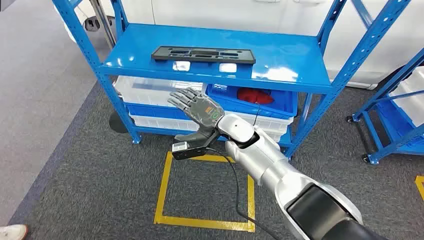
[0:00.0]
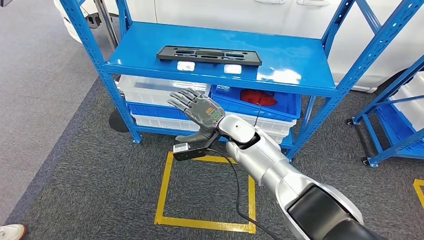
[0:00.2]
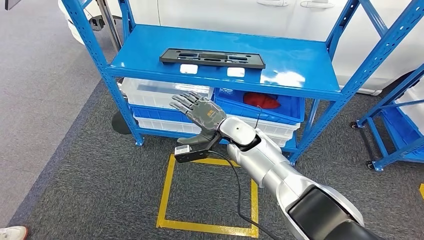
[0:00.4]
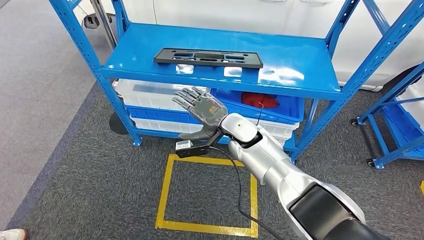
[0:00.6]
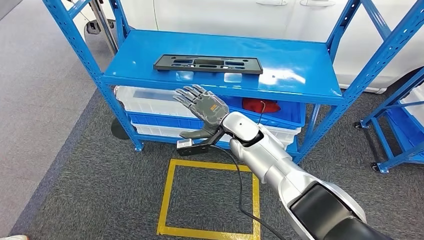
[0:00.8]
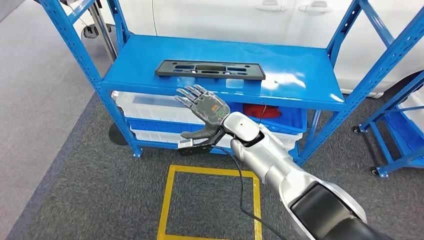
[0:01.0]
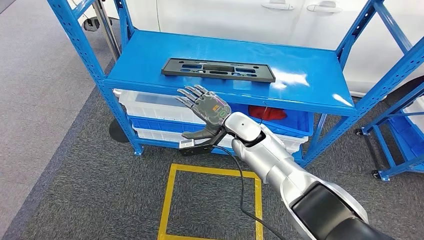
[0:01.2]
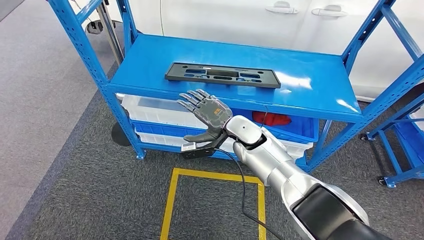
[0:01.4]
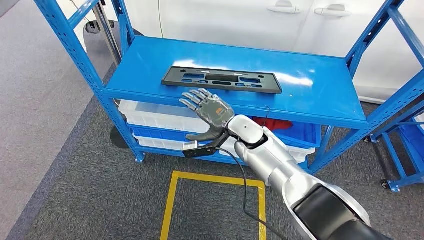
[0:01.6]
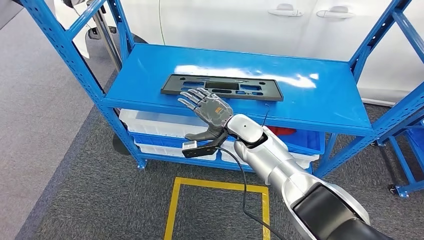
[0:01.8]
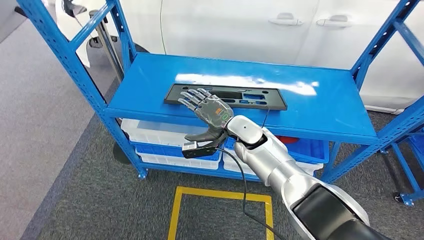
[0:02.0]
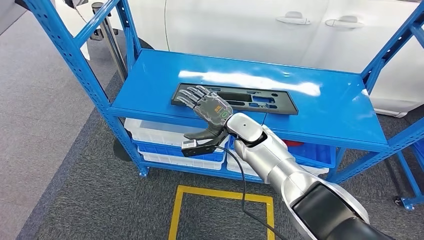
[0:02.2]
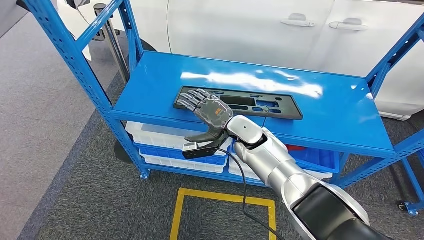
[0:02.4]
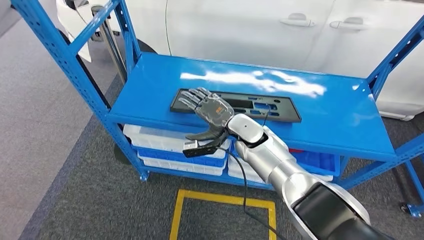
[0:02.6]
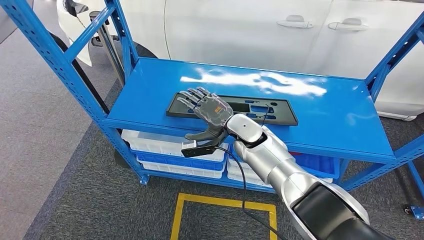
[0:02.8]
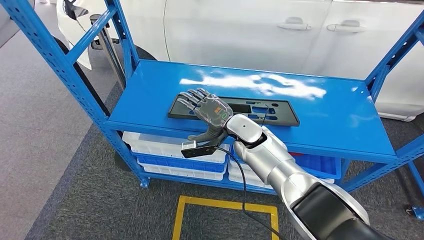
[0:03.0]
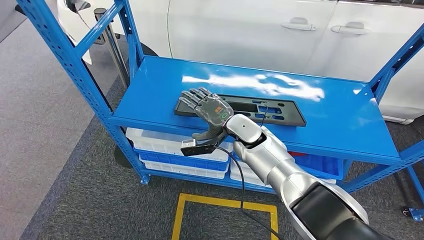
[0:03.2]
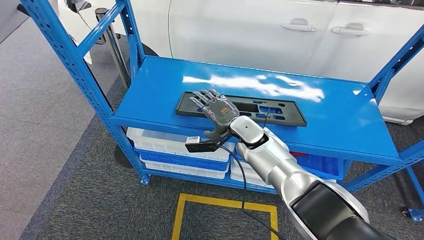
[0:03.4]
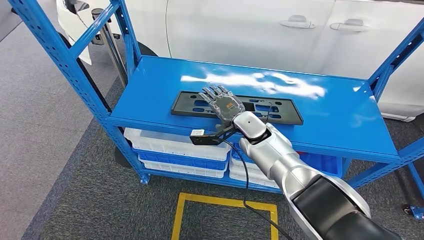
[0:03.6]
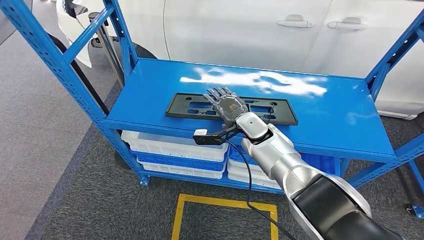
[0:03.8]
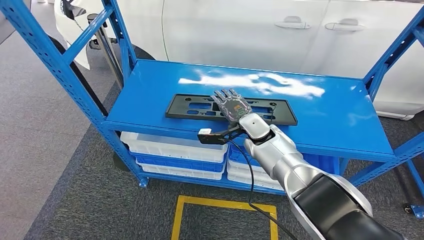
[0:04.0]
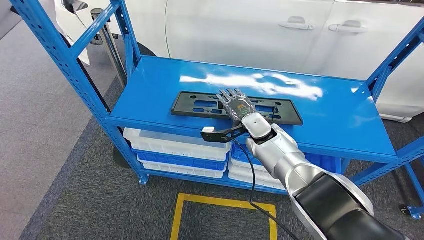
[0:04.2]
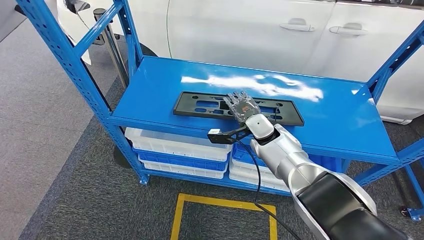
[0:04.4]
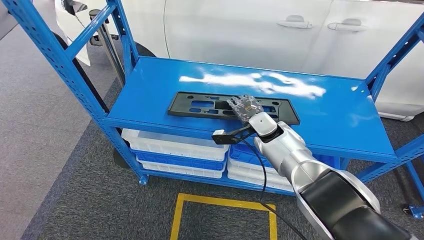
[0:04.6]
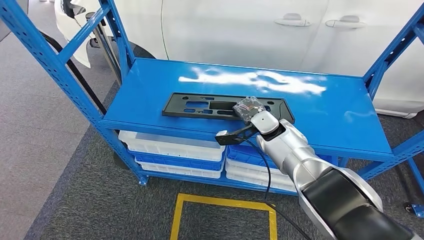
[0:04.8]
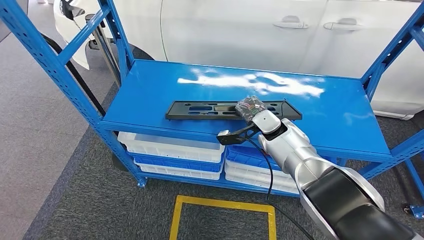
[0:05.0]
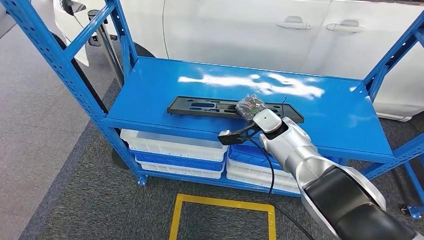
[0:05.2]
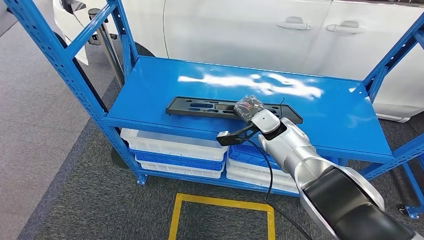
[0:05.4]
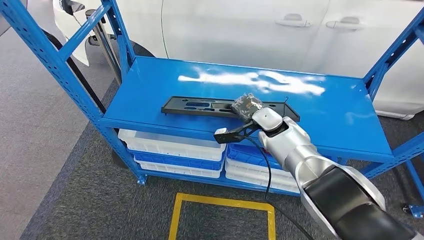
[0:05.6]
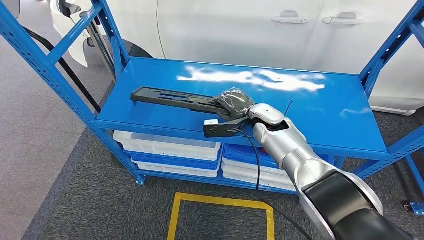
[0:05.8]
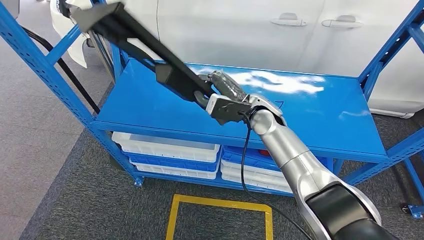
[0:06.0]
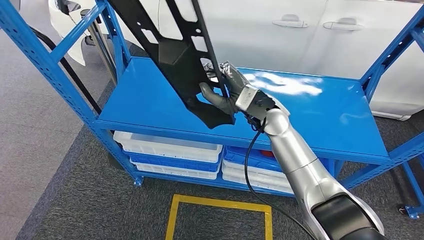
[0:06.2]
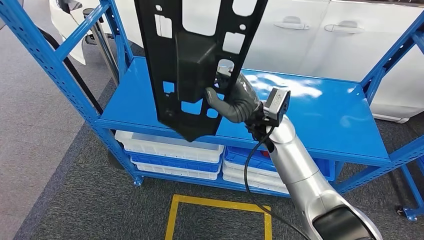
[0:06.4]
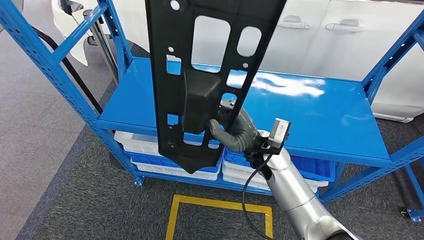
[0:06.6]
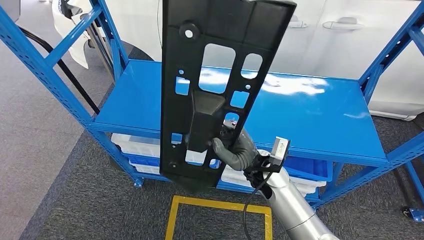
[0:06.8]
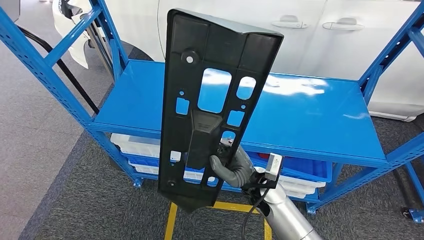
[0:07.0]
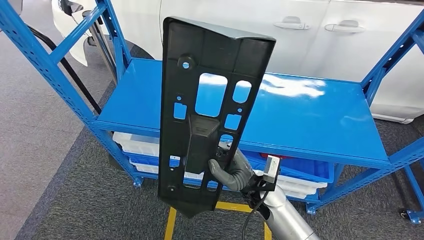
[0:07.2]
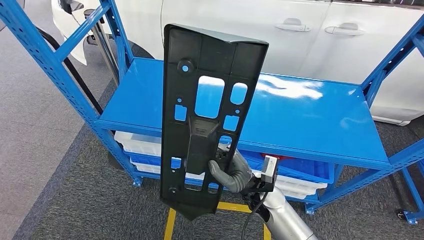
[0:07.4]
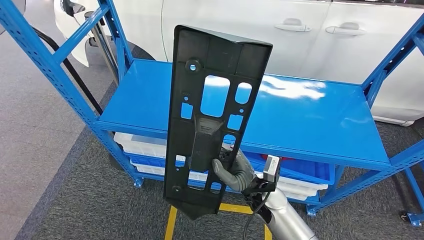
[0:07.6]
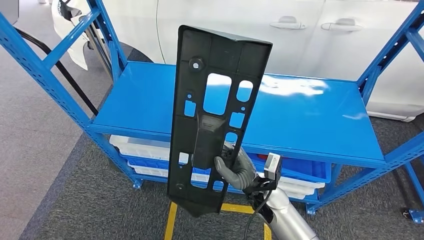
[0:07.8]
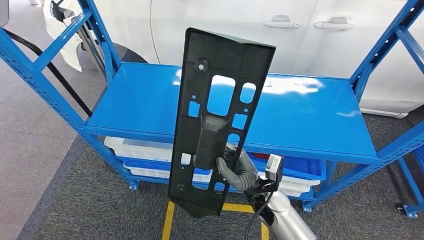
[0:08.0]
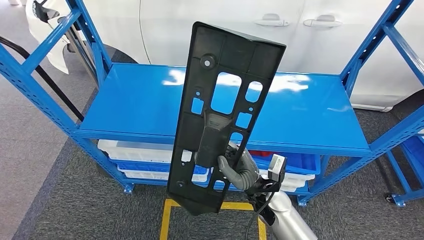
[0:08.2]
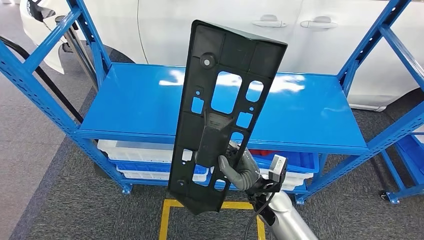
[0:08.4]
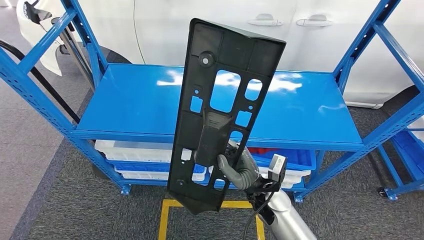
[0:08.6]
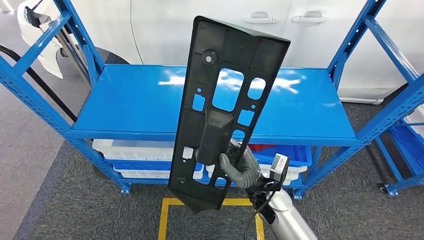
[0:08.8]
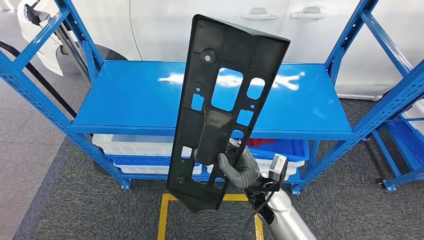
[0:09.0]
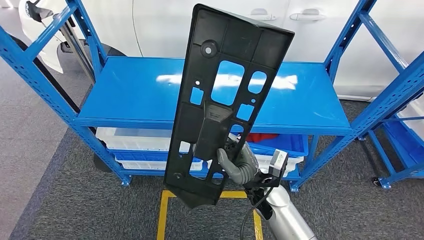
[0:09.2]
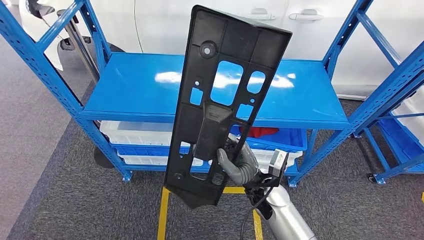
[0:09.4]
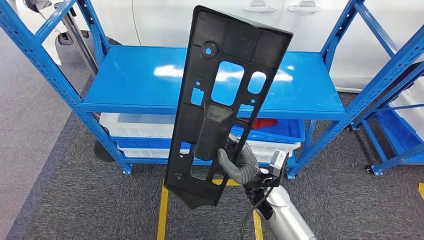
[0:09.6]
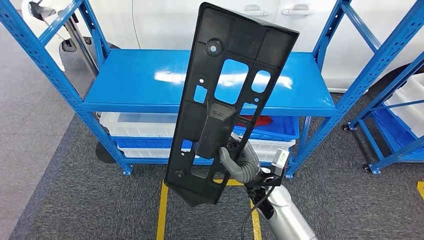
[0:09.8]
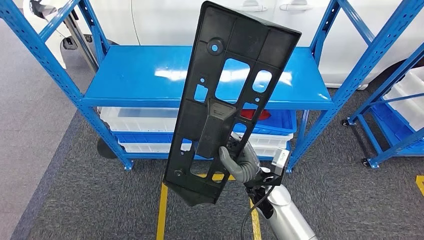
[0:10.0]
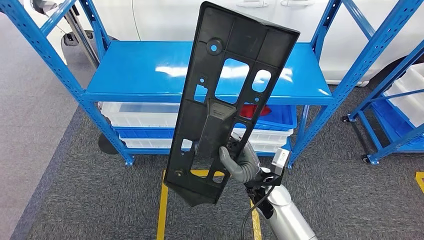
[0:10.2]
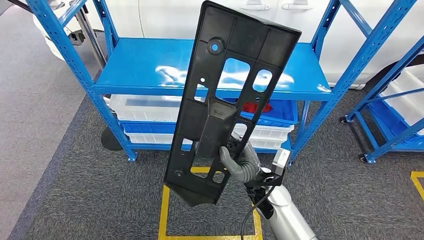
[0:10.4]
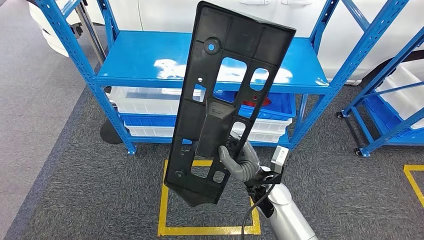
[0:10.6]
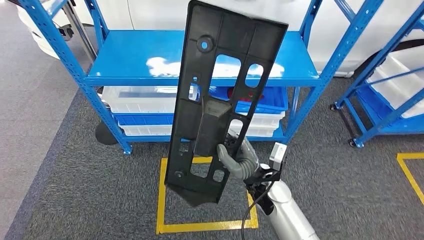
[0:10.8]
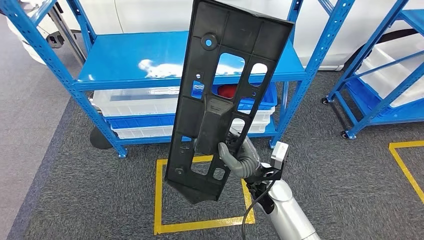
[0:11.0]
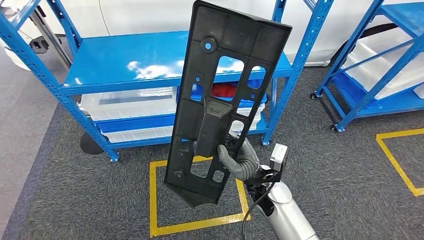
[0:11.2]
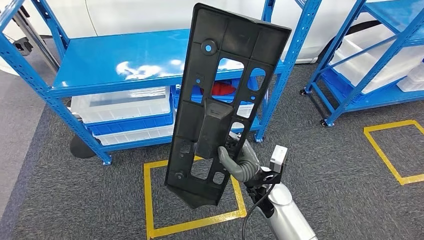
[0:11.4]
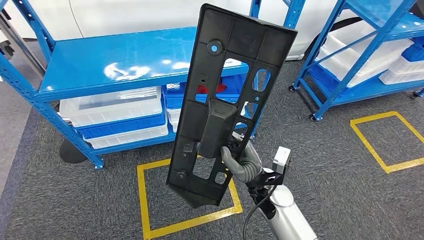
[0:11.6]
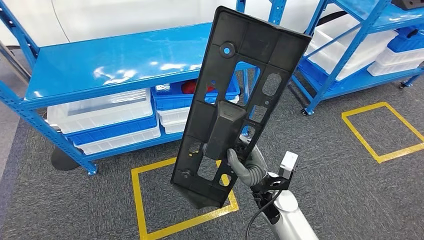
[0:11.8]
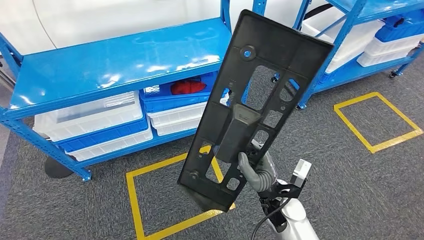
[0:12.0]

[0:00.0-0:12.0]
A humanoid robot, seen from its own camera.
Step, 0:00.0 to 0:06.4: Pick up the large material from the shelf.

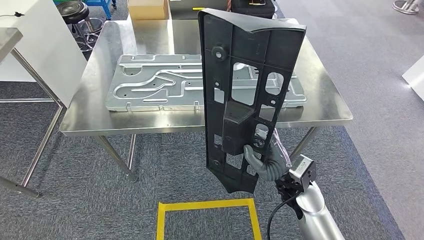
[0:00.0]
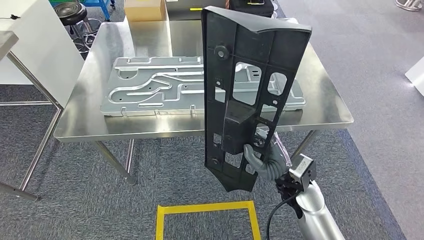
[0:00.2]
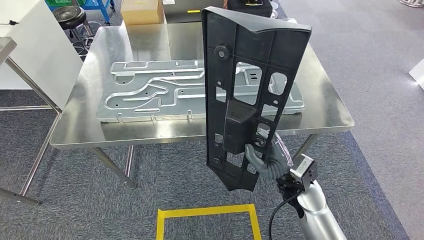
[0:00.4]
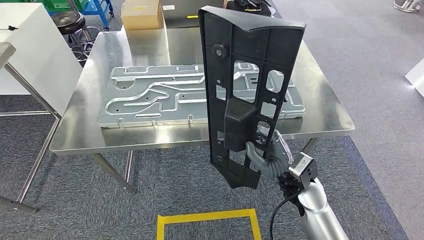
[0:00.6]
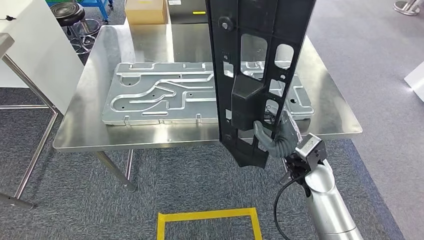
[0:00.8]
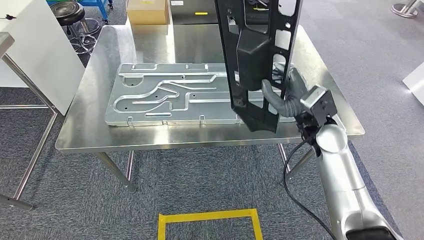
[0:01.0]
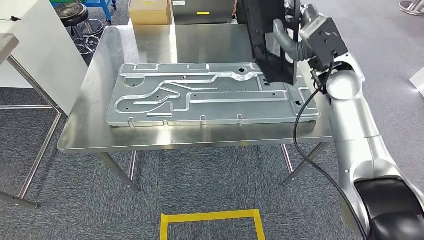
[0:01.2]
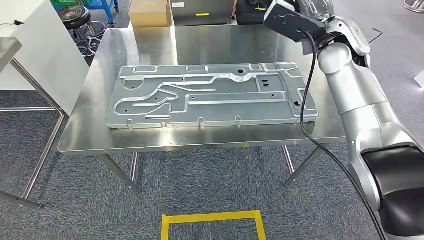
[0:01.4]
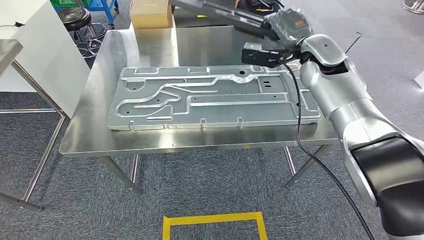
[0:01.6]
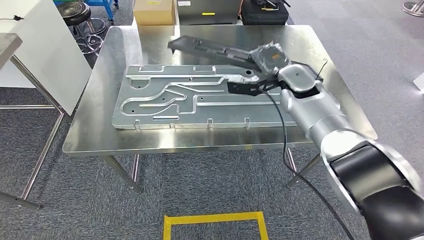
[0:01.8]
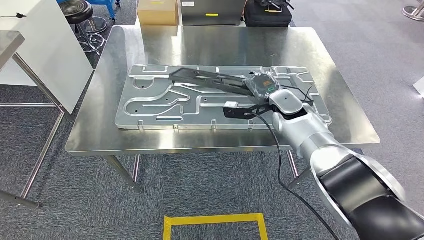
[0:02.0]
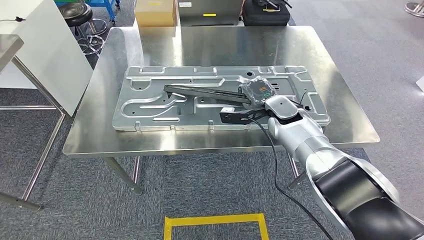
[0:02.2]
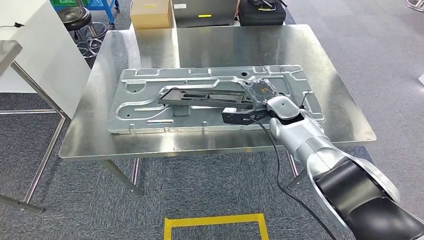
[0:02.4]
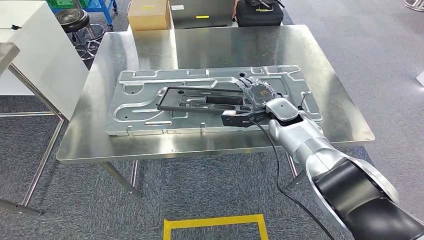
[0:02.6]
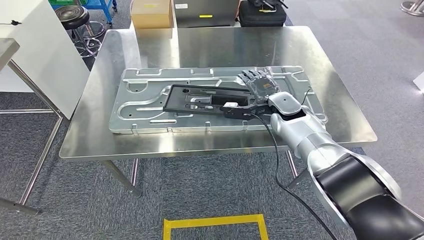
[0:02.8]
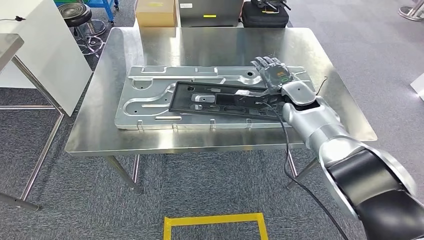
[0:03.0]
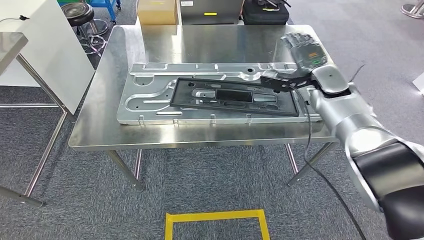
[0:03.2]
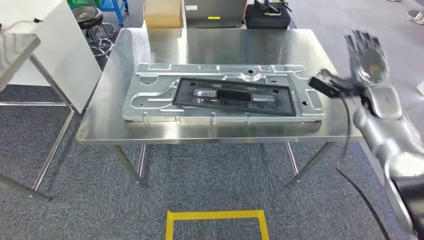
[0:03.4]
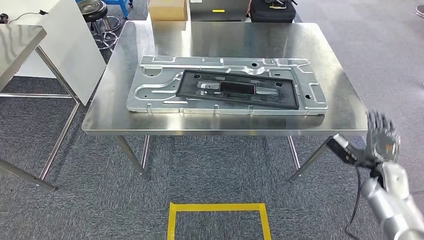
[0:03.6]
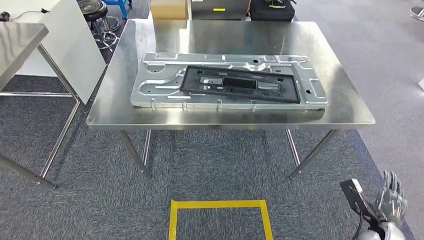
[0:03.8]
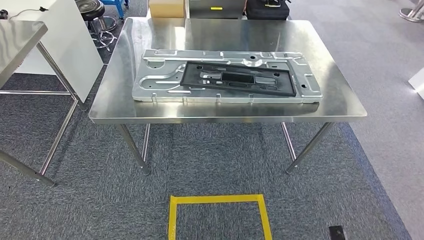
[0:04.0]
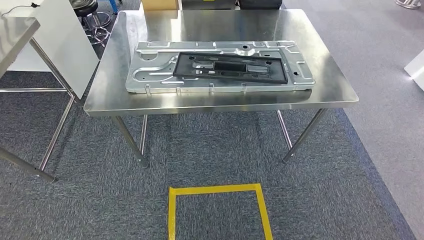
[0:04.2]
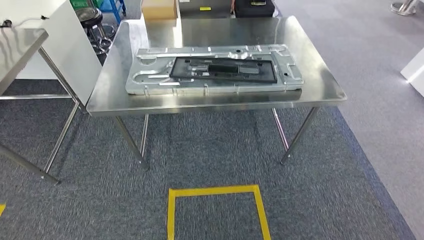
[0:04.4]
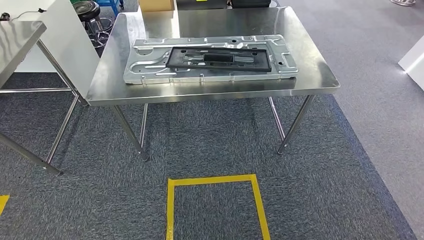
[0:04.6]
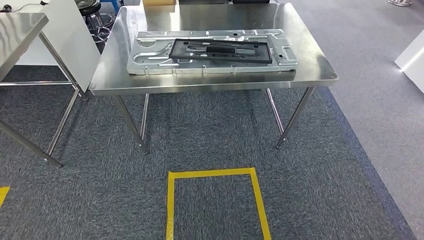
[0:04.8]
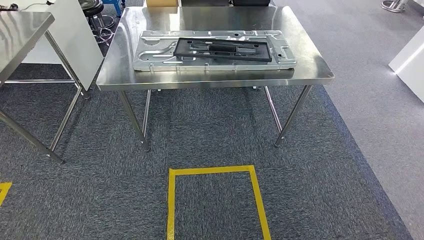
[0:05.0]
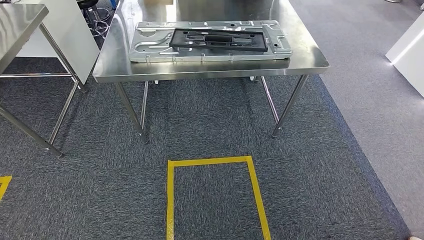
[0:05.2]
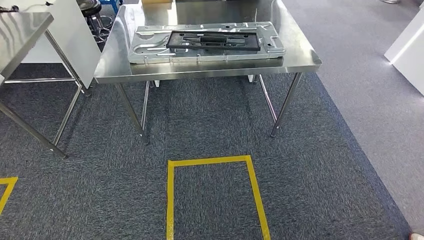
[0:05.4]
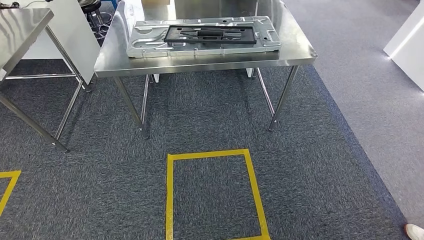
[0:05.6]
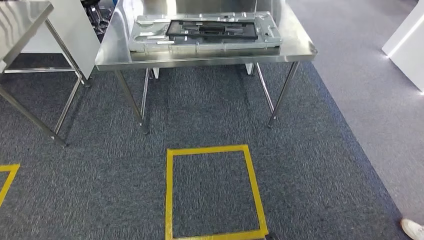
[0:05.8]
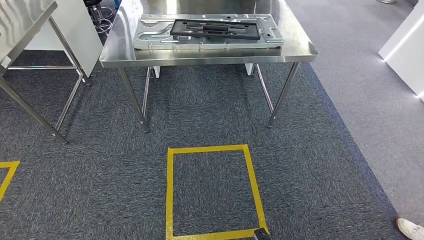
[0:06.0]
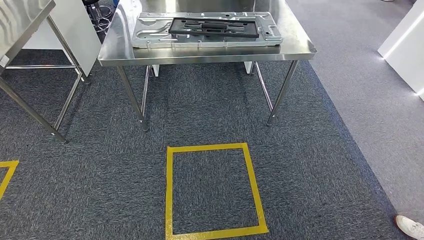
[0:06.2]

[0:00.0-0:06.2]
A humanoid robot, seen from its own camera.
Step, 0:02.0 to 0:05.0: Insert the large material into the corresponding slot on the workbench.
